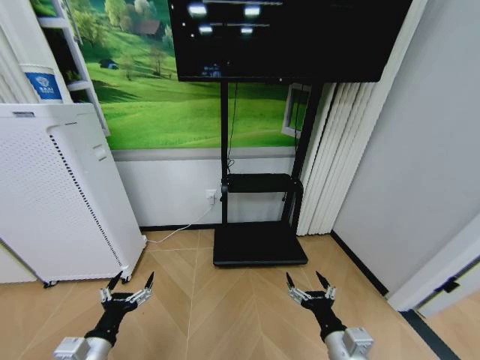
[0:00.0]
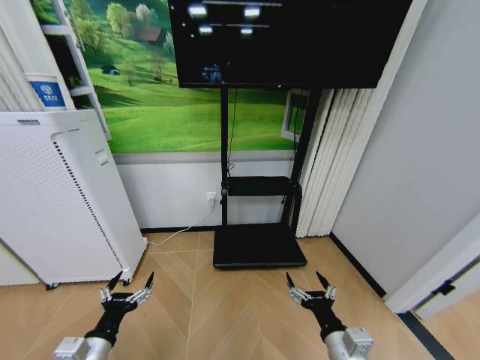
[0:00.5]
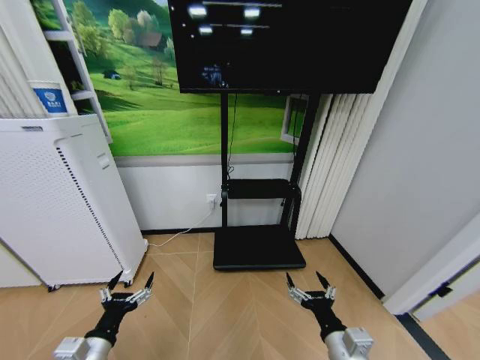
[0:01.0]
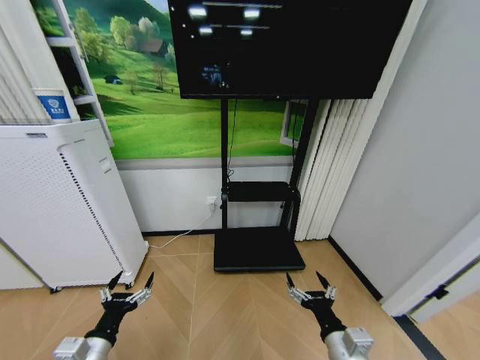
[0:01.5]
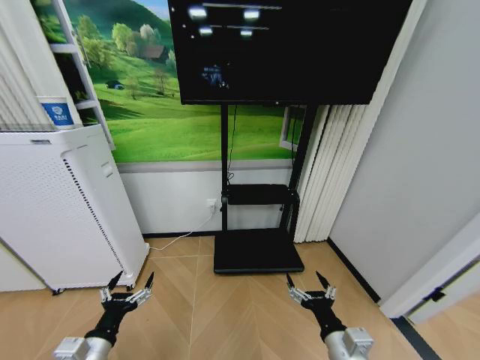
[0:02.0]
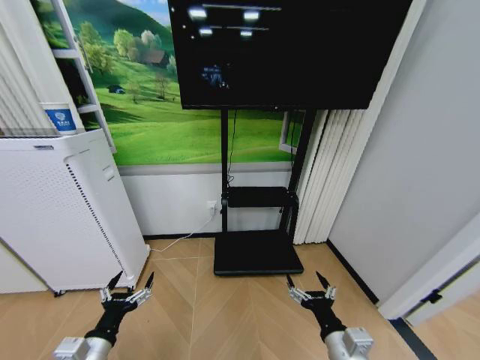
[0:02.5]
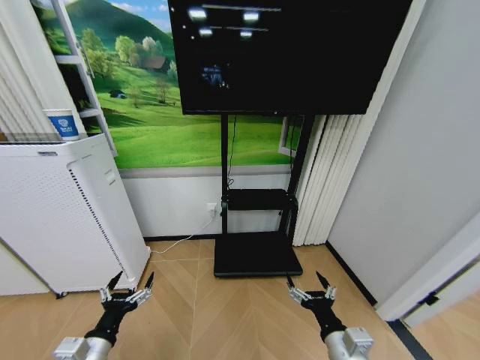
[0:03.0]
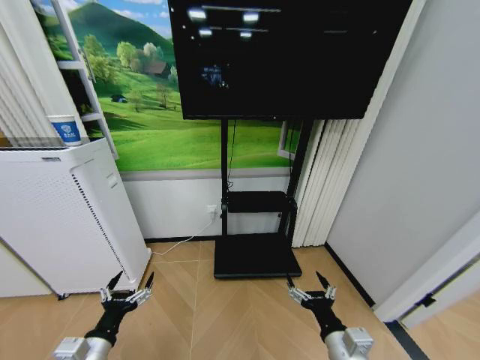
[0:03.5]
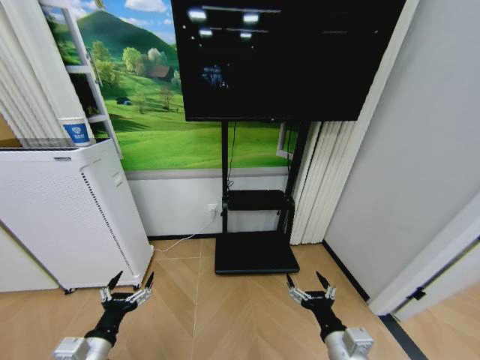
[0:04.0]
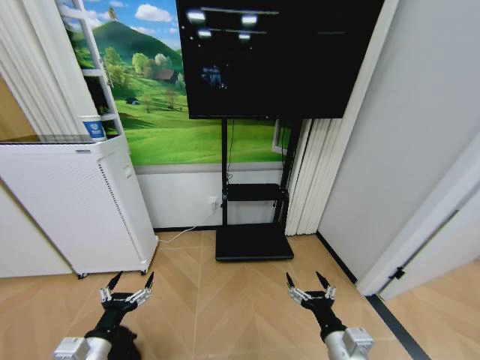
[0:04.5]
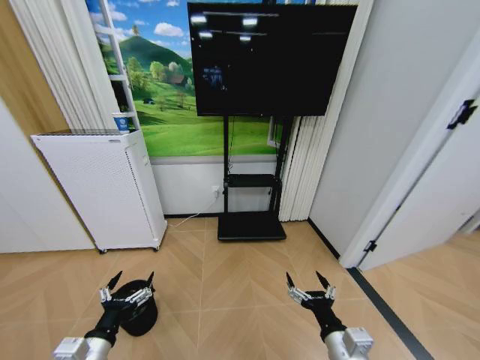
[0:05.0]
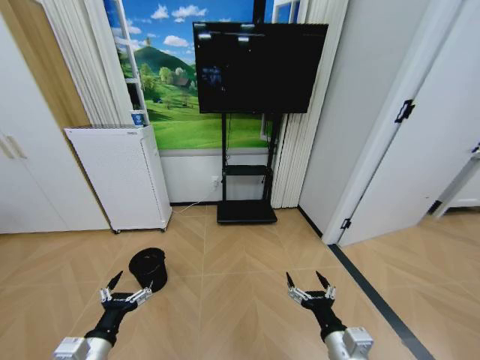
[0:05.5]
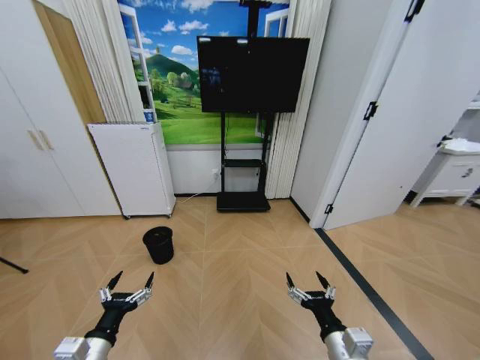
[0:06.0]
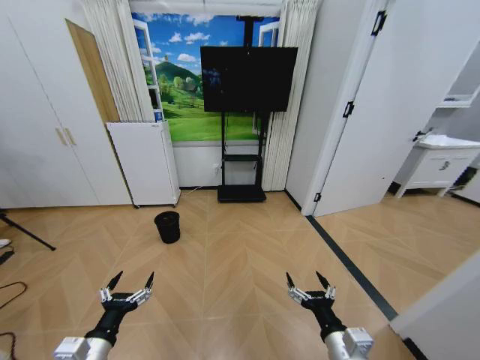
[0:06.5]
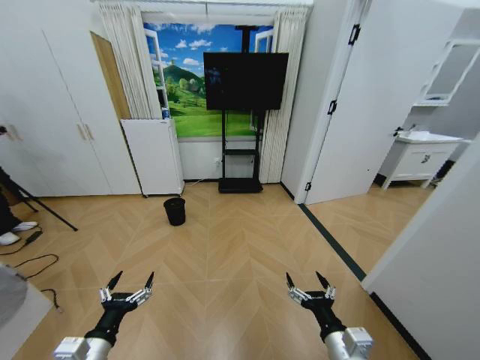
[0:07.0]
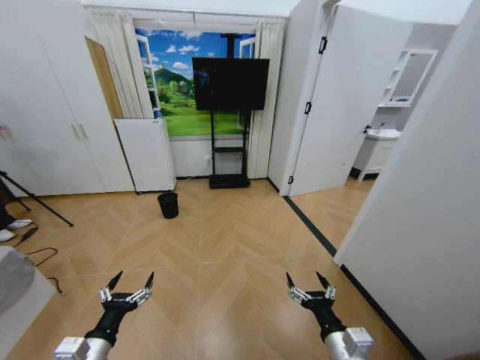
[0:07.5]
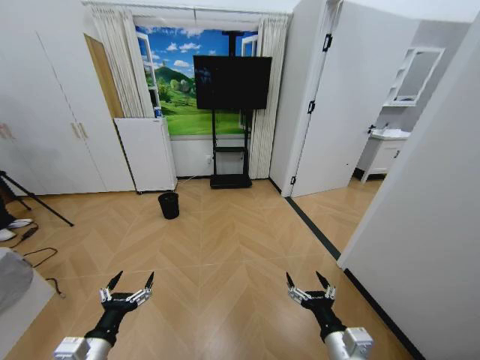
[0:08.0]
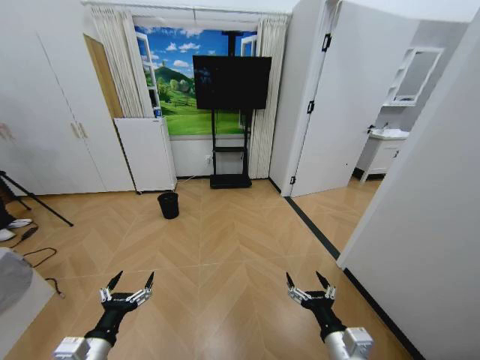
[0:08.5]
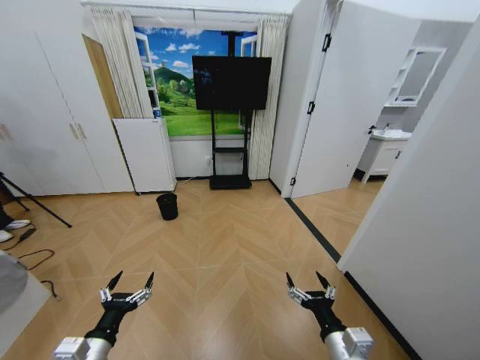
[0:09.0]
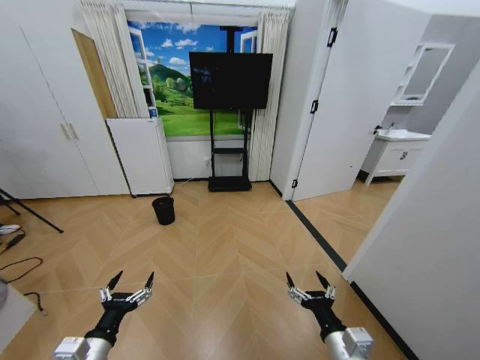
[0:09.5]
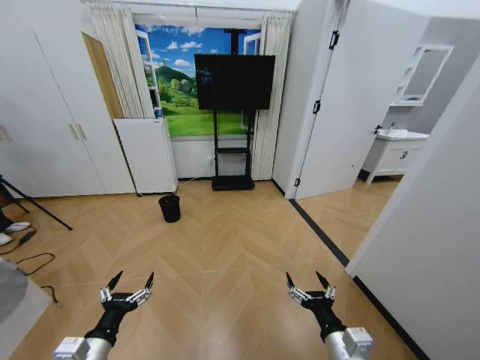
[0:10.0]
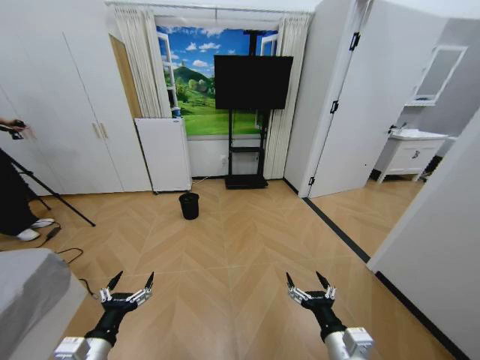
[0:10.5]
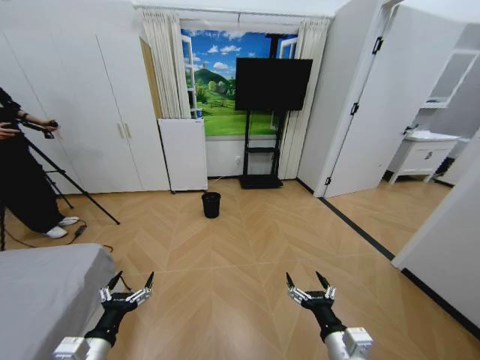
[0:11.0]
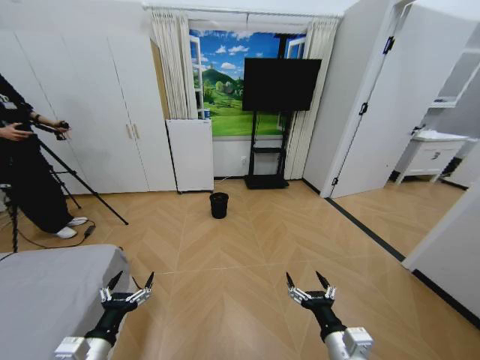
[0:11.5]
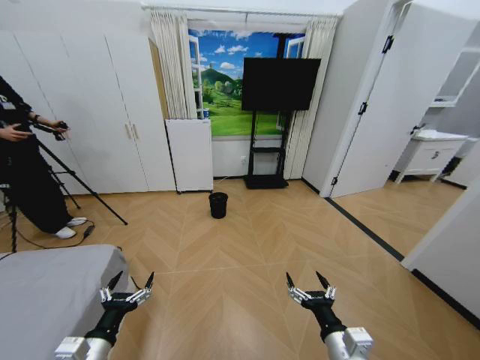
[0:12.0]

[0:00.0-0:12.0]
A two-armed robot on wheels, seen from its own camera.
Task of the whole recording: Pick up the trash bin and place the garbage on the floor into it.
0:00.0 to 0:02.0: Neither gripper changes place.
0:08.0 to 0:10.0: Both grippers stay put.

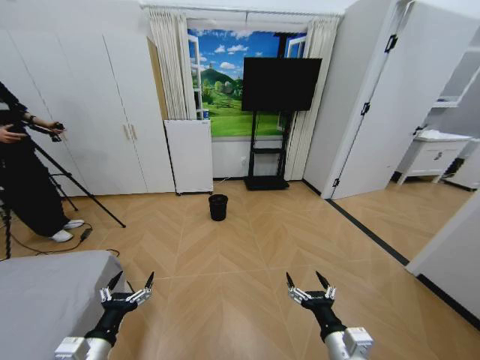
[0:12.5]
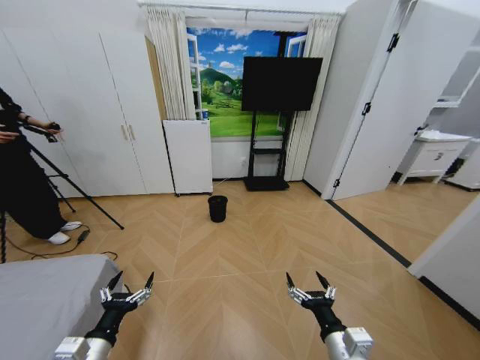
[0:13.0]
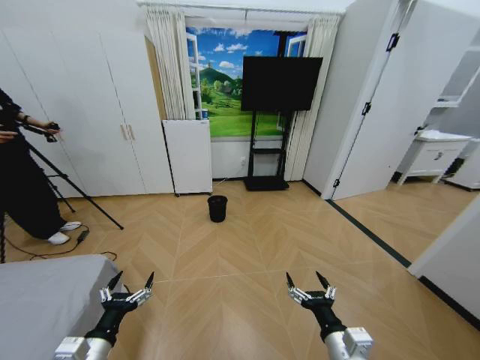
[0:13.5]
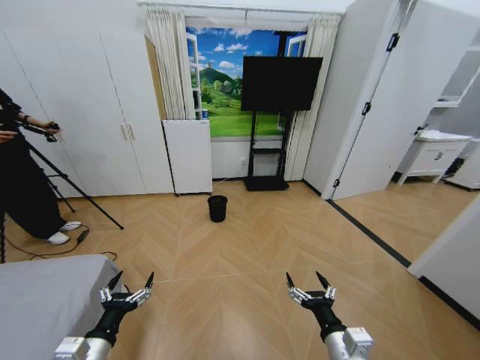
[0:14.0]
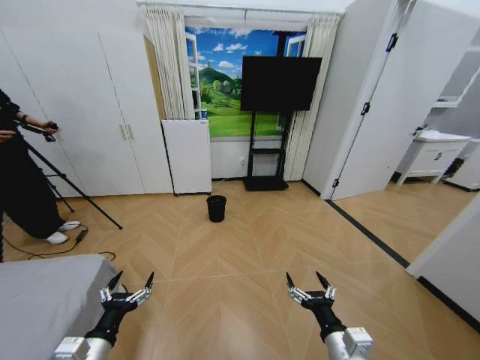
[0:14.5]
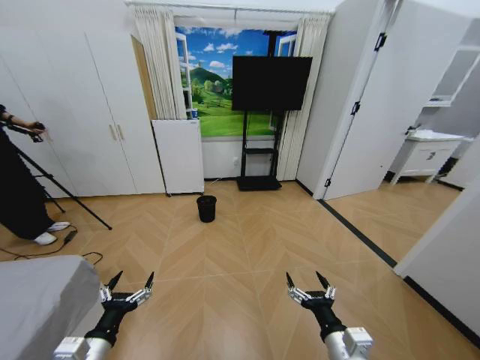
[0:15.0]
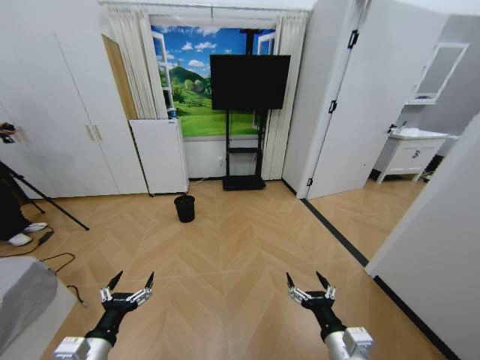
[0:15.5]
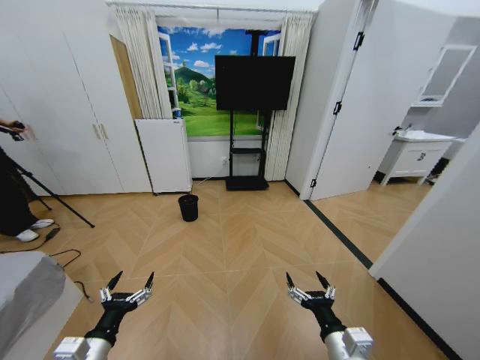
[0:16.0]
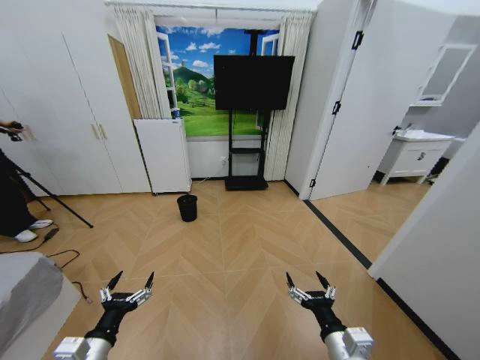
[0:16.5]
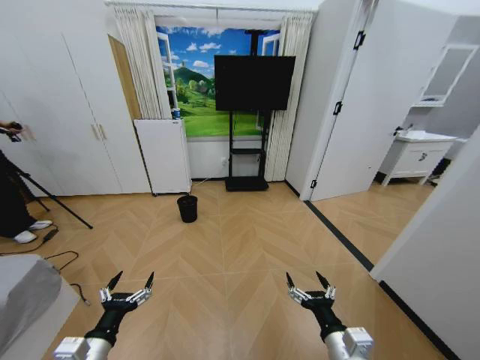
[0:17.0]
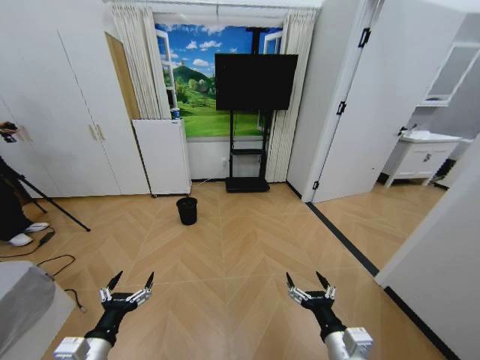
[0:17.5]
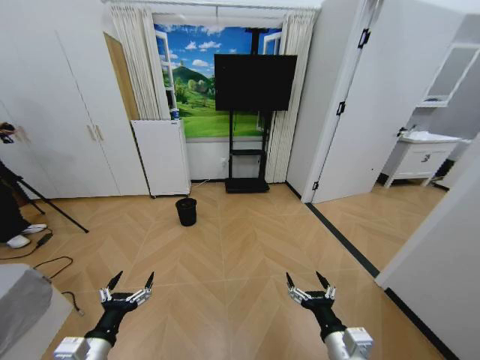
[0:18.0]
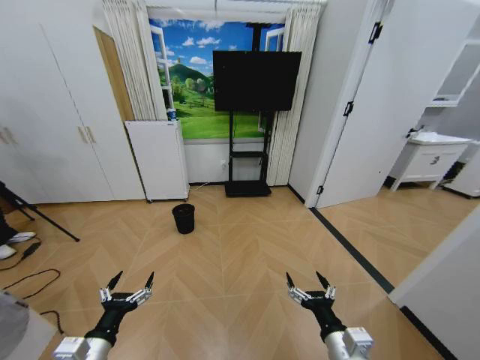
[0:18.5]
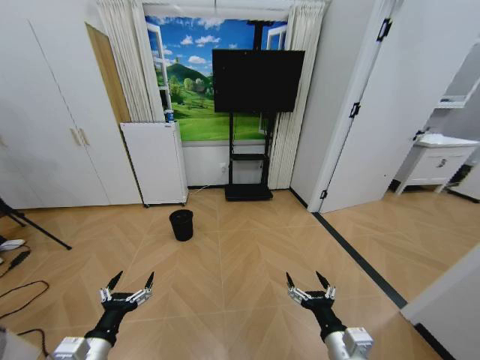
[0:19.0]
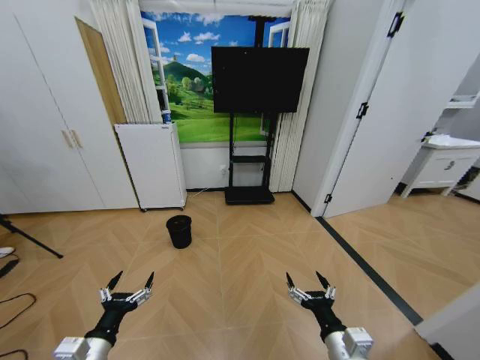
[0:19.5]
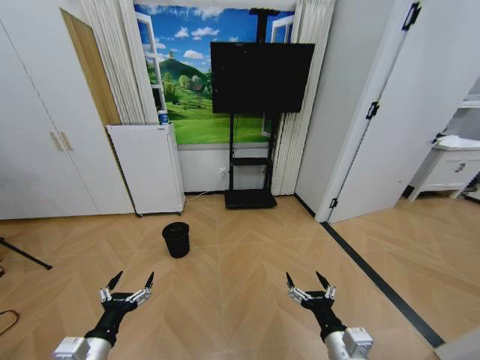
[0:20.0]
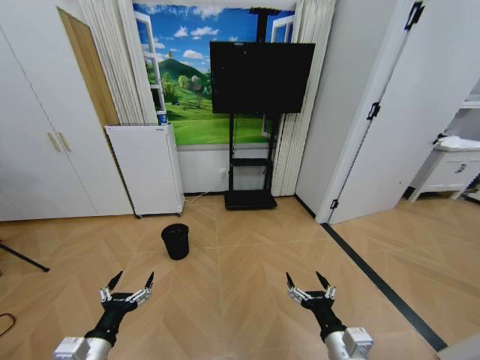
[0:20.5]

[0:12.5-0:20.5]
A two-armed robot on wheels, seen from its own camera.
Task of the whole recording: Pick up the trash bin and place the garbage on the floor into it.
0:12.5 to 0:14.5: The two grippers keep their place.

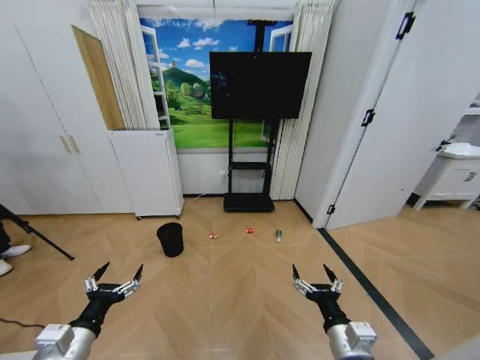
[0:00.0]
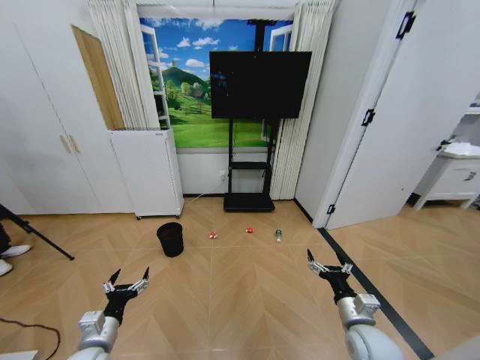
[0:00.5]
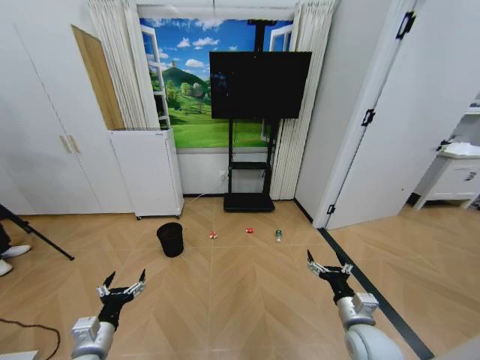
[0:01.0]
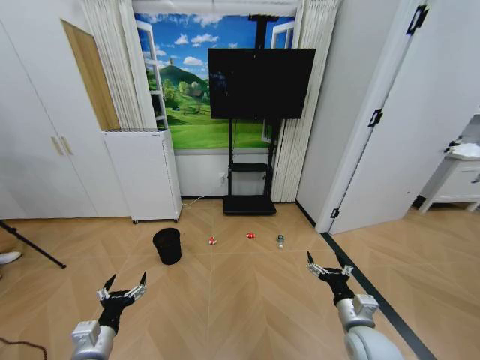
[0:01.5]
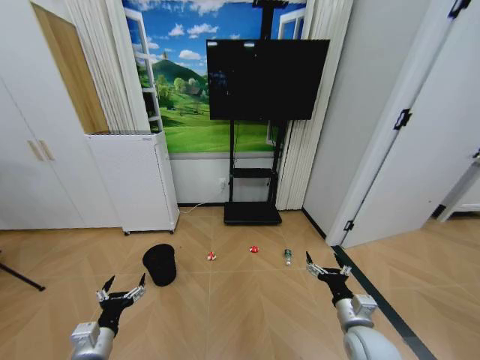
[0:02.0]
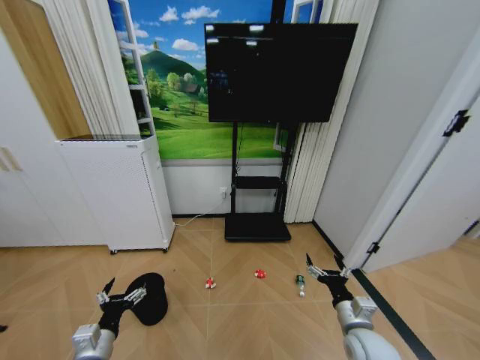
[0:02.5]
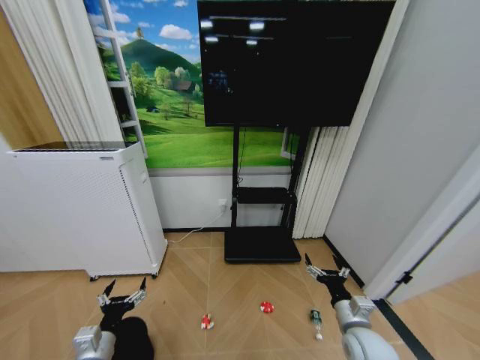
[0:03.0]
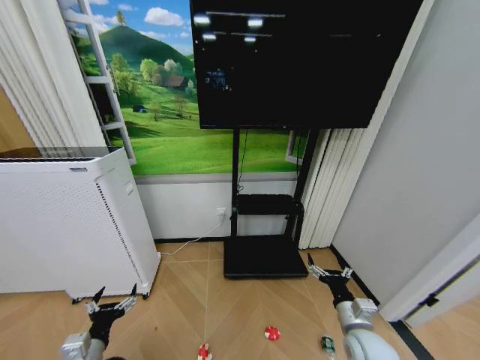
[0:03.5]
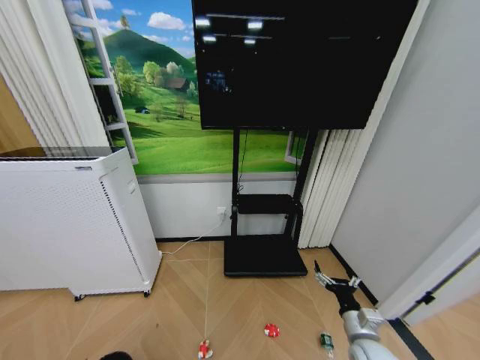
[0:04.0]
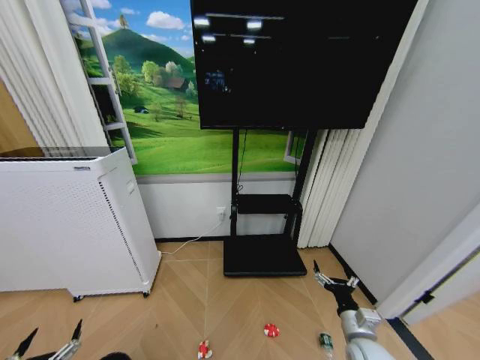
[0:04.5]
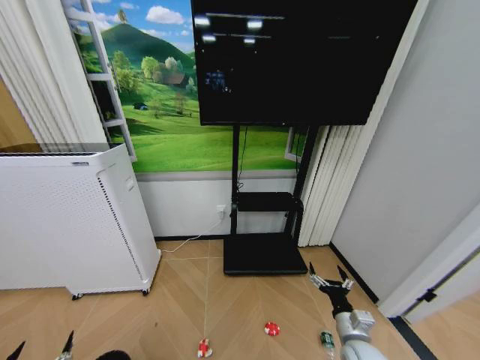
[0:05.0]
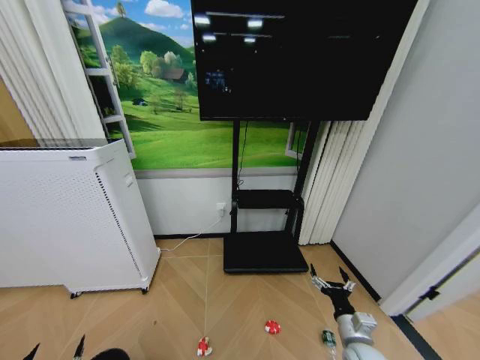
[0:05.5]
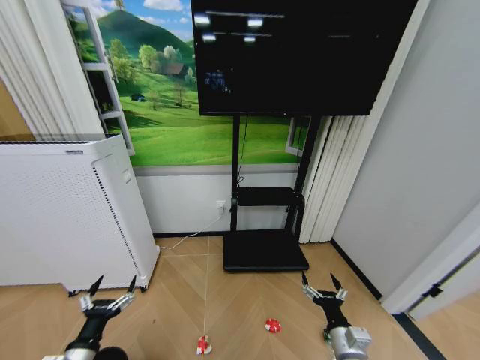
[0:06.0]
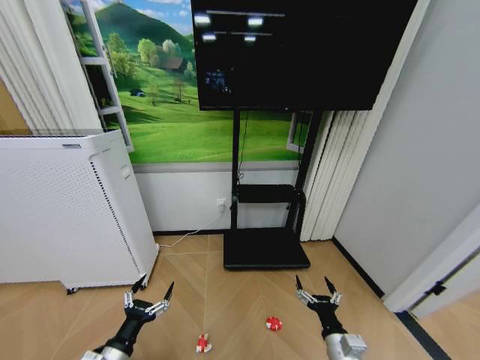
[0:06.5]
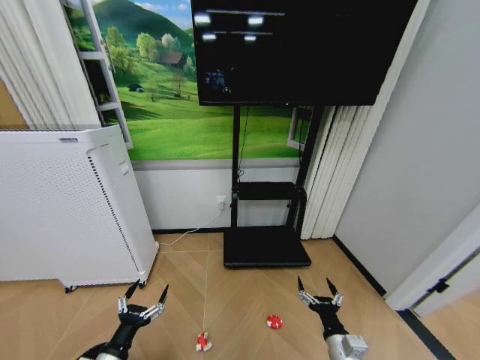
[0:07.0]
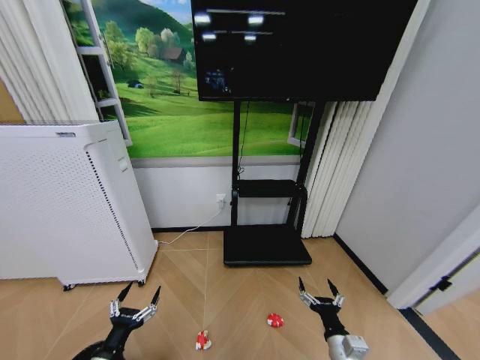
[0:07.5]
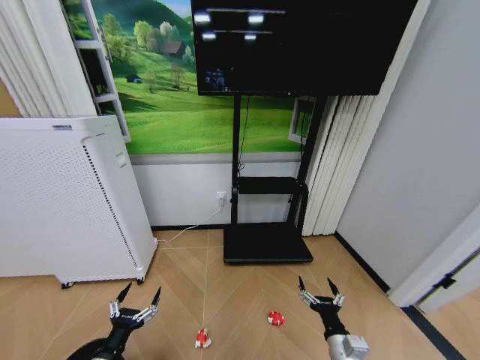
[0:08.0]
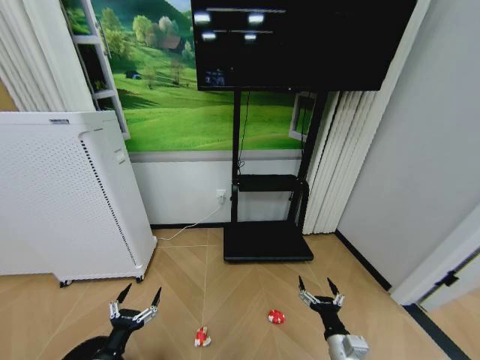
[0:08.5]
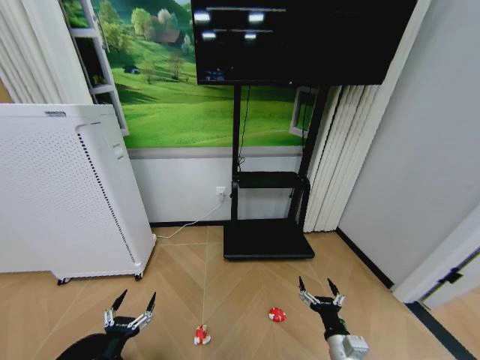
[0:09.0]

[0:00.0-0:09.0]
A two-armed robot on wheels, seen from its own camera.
Task of the whole recording: Pick up the trash bin and place the garbage on the floor into it.
0:02.0 to 0:04.5: The right gripper changes place by roughly 5 cm. Meanwhile the left gripper shifts some 15 cm backward and to the left.
0:04.5 to 0:07.0: The right gripper is displaced to the left and backward by about 10 cm; the left gripper goes some 15 cm to the right and forward.
